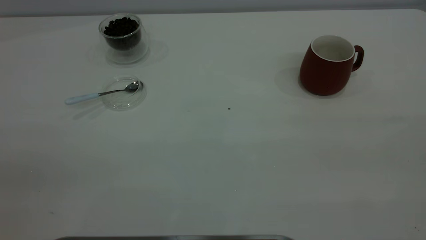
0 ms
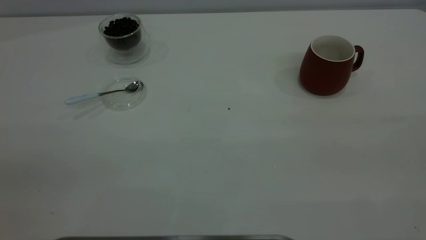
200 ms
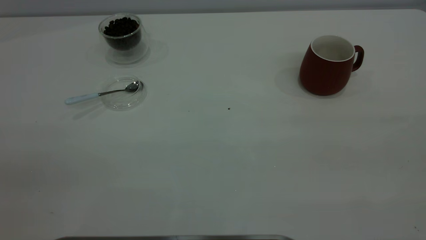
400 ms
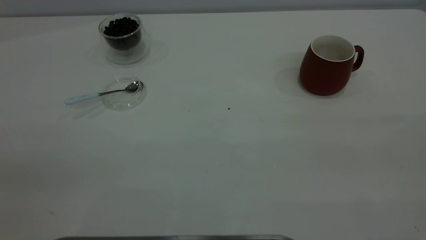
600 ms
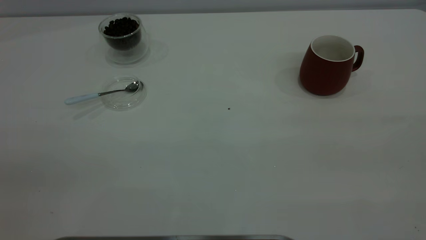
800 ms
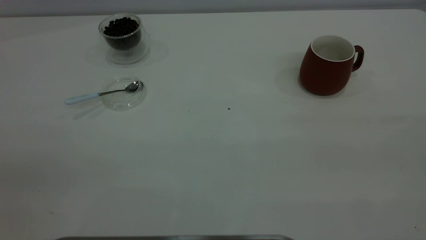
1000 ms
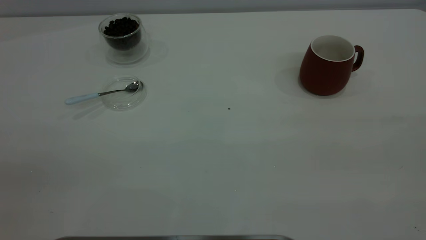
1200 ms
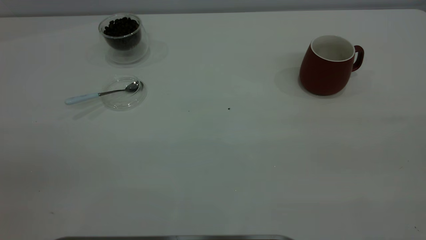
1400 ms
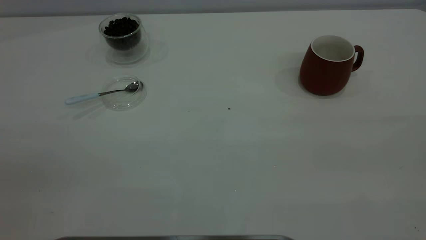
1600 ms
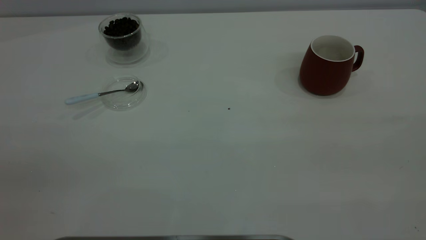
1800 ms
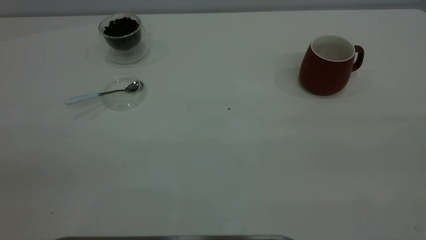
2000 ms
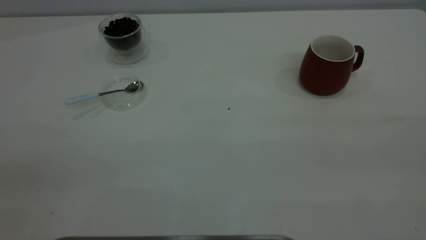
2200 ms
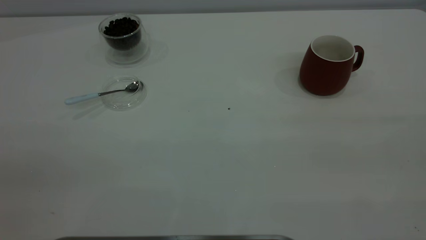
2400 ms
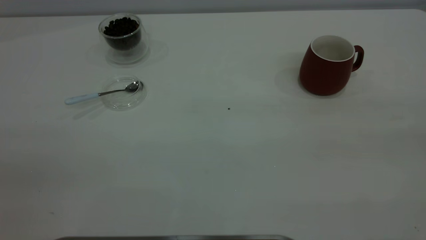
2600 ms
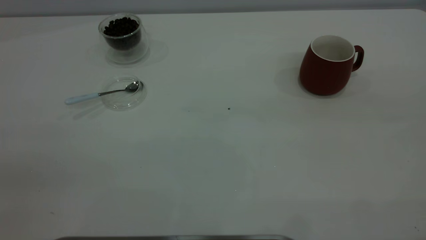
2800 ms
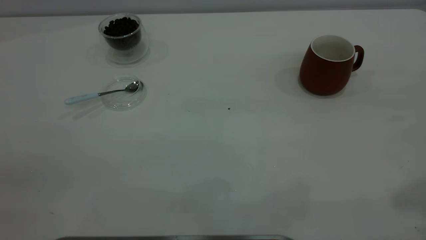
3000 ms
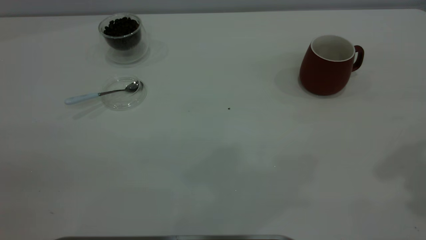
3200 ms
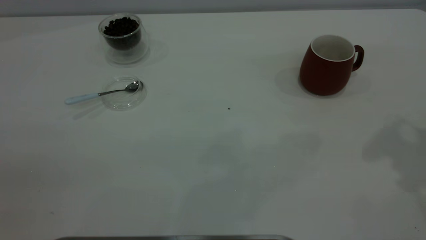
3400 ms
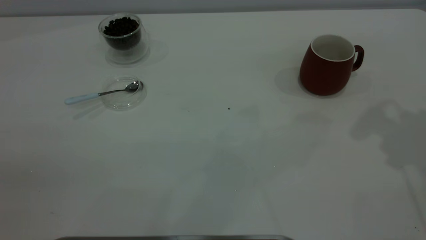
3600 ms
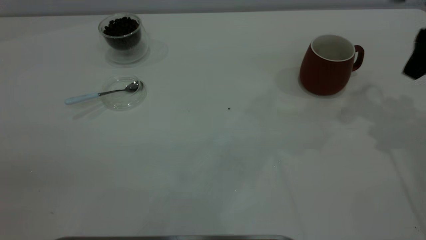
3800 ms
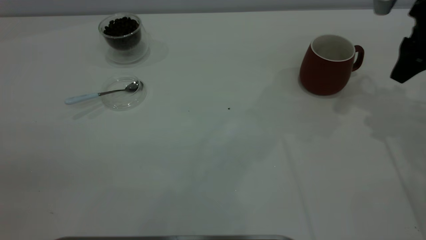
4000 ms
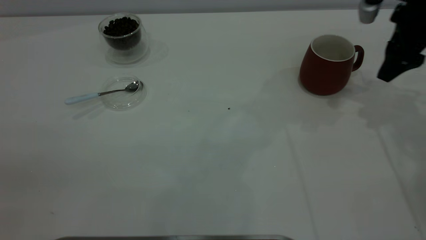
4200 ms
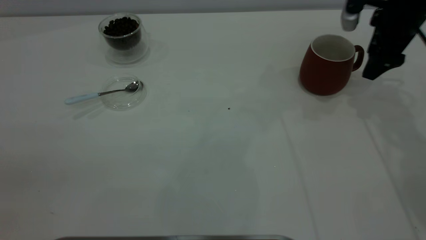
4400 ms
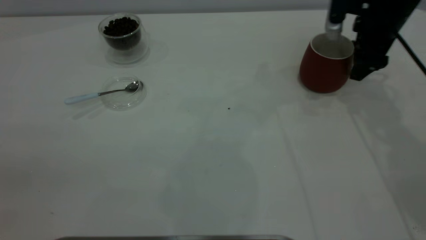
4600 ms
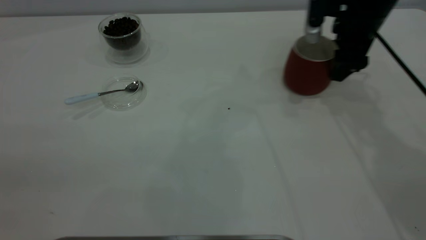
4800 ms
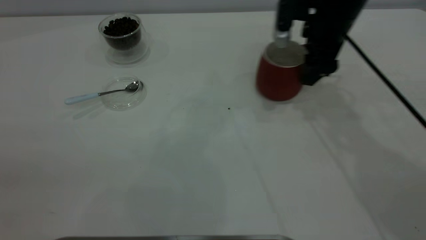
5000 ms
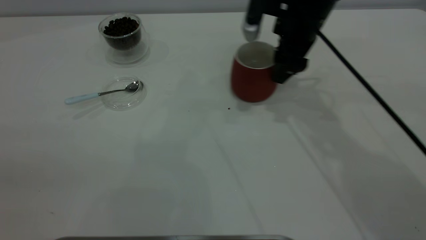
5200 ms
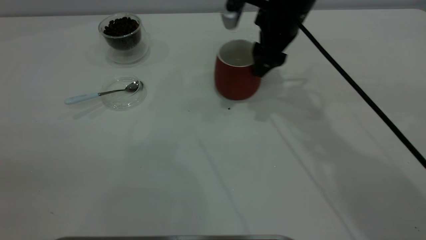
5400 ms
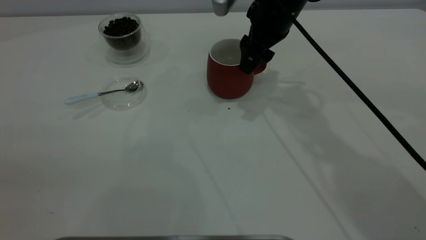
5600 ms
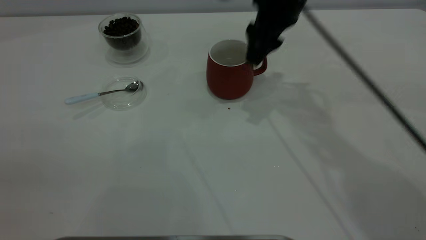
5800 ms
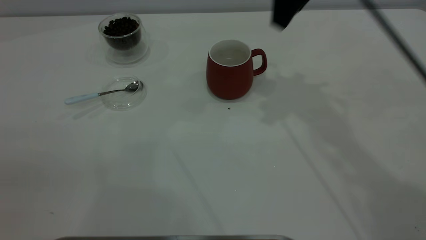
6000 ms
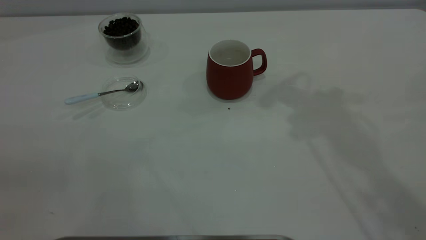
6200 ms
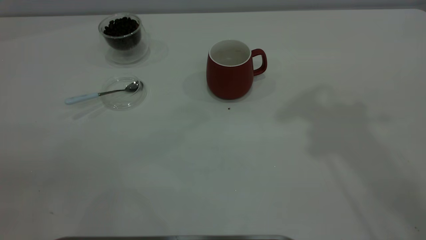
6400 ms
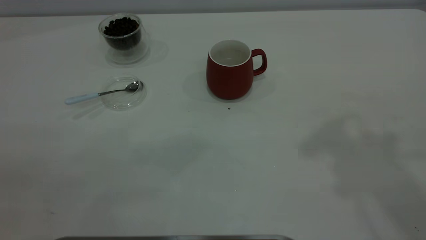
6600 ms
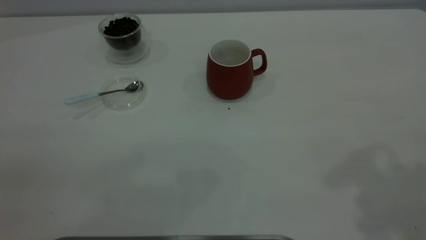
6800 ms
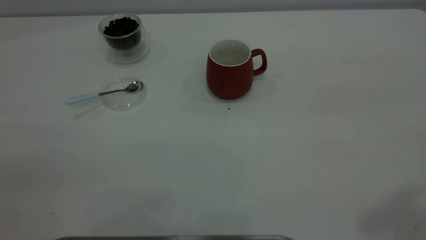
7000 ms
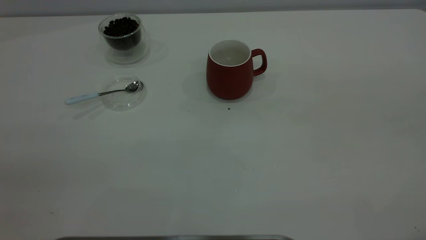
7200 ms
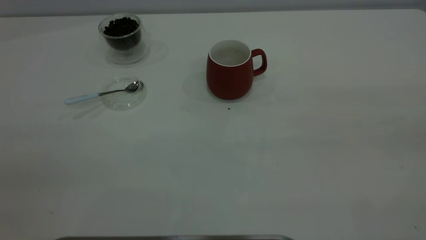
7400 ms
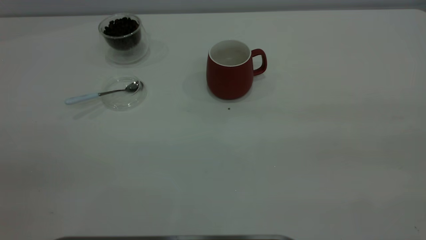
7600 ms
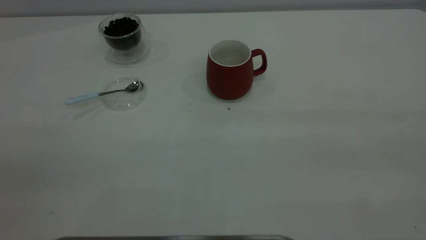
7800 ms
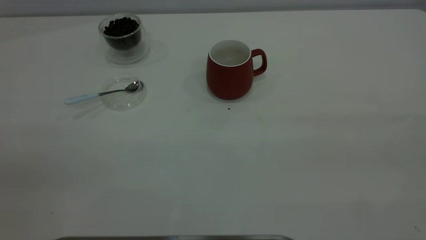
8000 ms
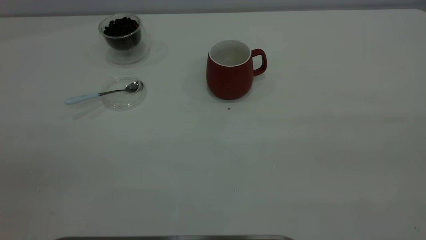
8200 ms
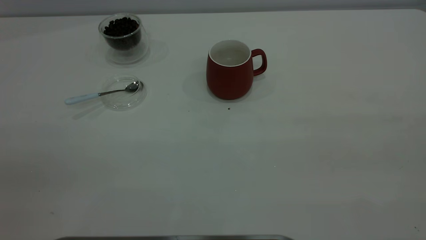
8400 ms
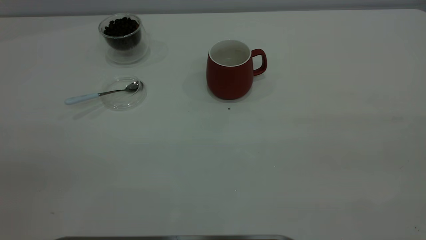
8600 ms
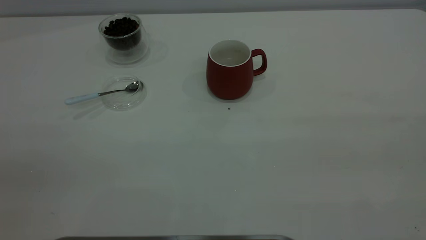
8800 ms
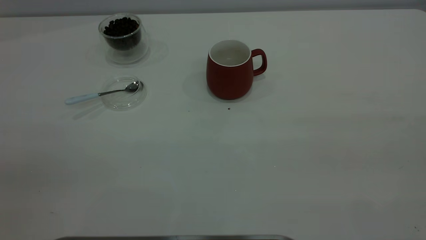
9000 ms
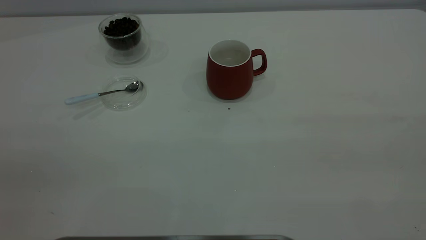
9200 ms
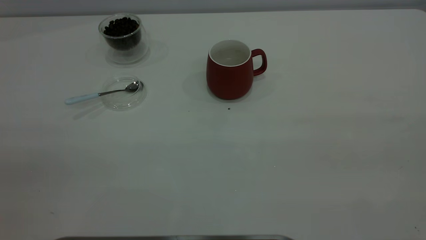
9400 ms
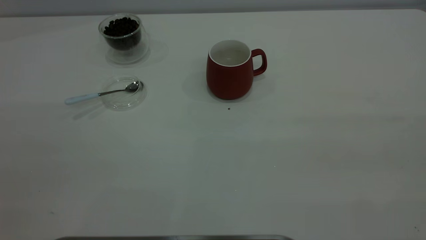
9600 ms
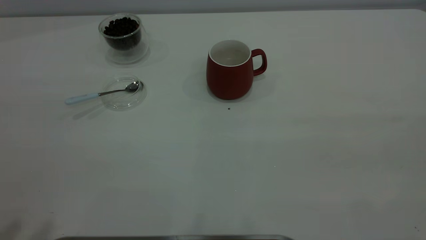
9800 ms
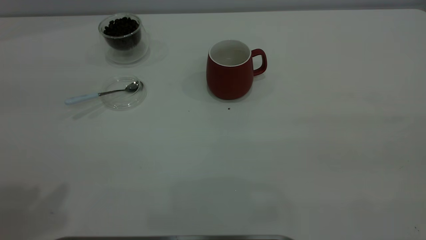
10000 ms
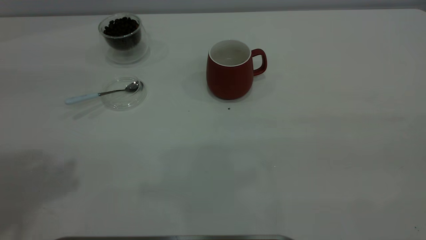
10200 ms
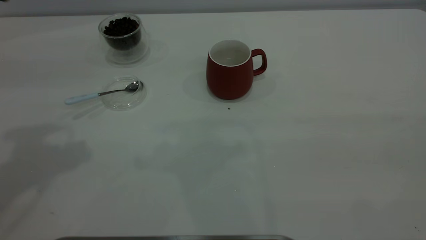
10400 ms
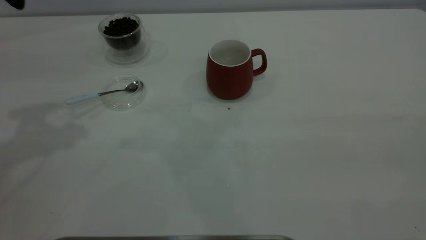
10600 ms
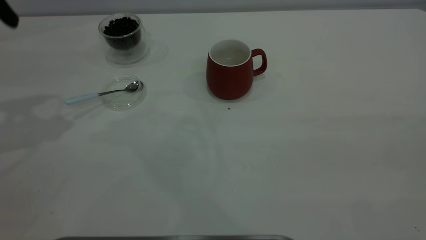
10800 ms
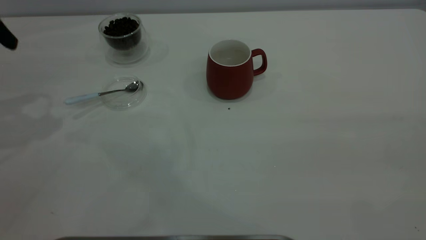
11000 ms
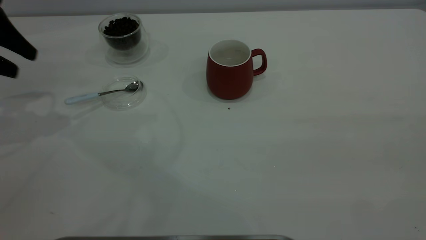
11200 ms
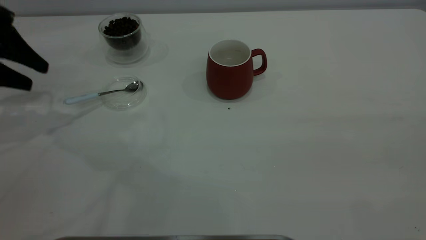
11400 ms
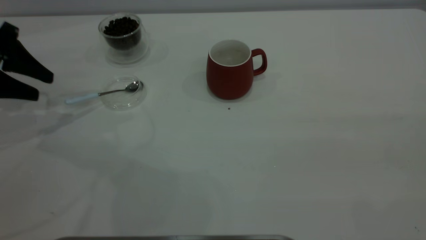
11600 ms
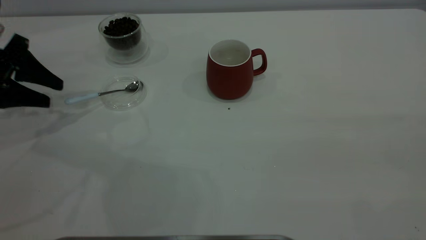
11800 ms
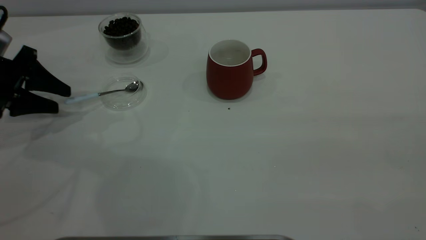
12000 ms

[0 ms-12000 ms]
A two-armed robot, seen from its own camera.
Task of the whole recording: the right gripper place the red cup in the center of the table, the left gripper take the blue spoon from the cup lid and scoop out the coffee beans from the coffee cup and put them into the red cup, the left gripper put the spoon back into the cup lid.
Step, 0 ms to 5800 ms: Move the cup to the center of view.
0 ms to 1600 ms: Neither gripper changes place.
3000 ms to 4400 ms: The right gripper heads forward and downward, covering approximately 35 cm, and opens its fingers.
4400 ms to 6000 ms: The right gripper moves upward and to the left, roughly 20 cm, and closes its fingers.
6000 ms to 7600 ms: The right gripper moves backward and to the right, some 40 cm.
10400 ms to 12000 ms: The left gripper shifts roughly 25 cm downward.

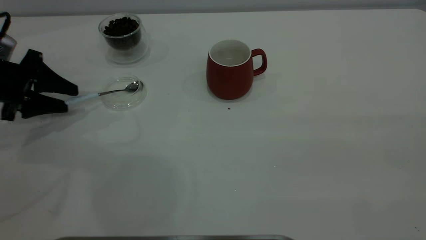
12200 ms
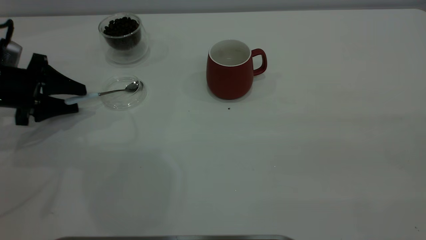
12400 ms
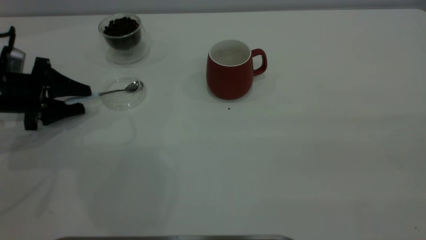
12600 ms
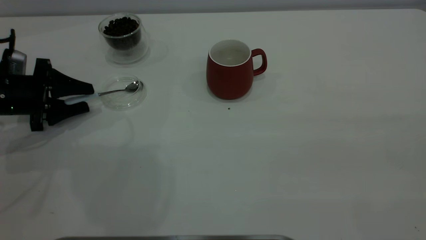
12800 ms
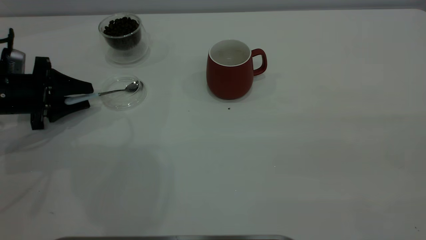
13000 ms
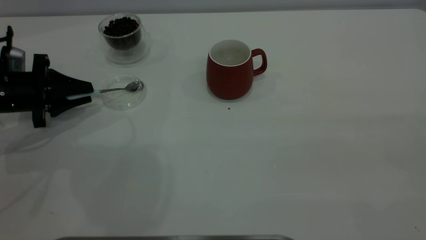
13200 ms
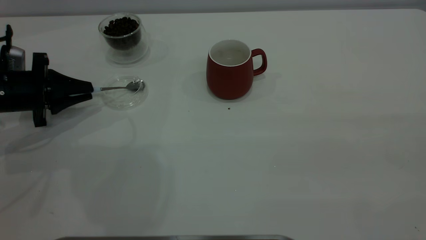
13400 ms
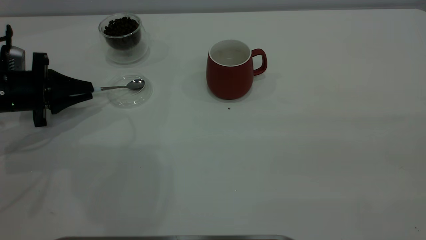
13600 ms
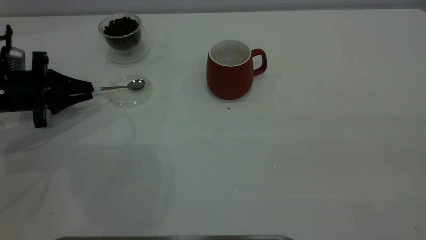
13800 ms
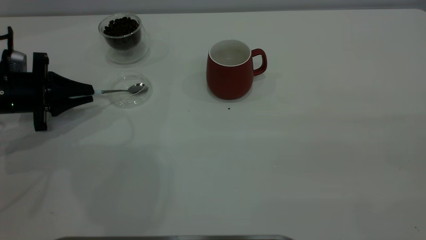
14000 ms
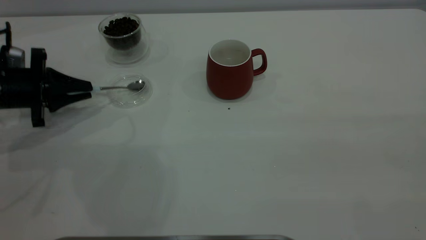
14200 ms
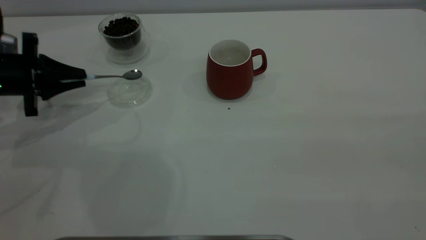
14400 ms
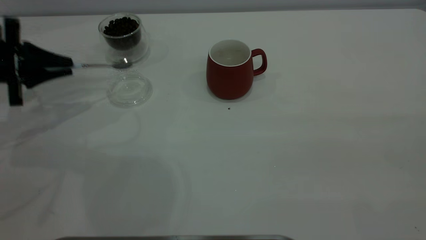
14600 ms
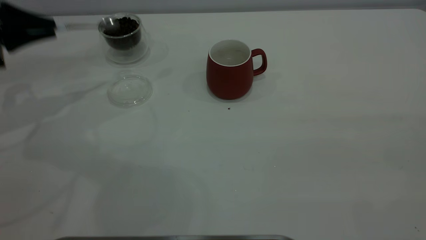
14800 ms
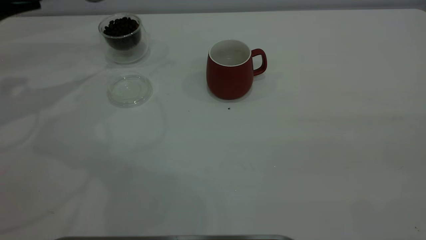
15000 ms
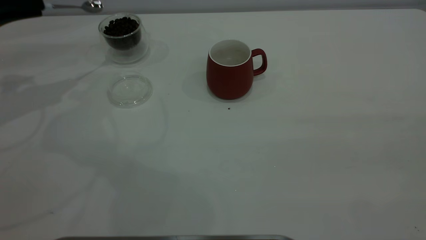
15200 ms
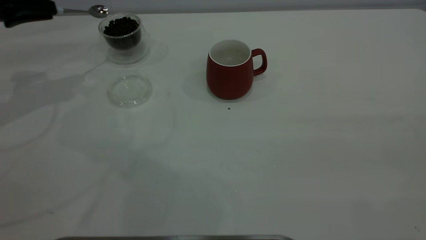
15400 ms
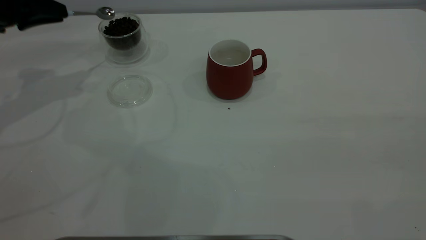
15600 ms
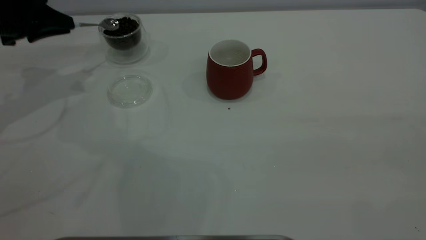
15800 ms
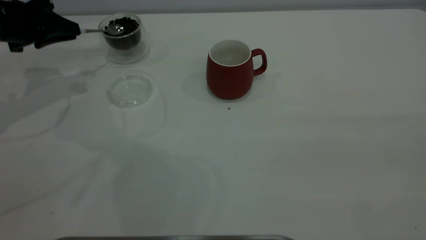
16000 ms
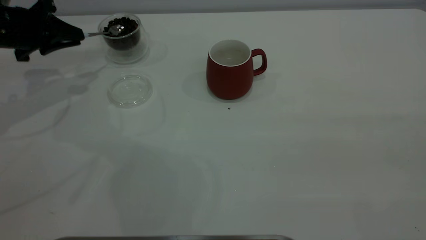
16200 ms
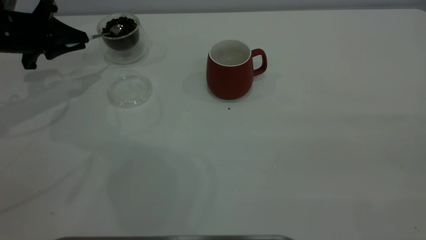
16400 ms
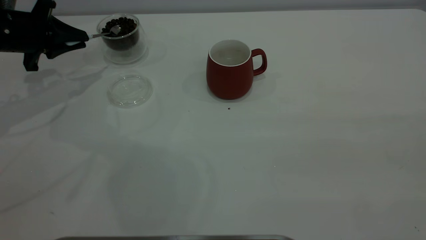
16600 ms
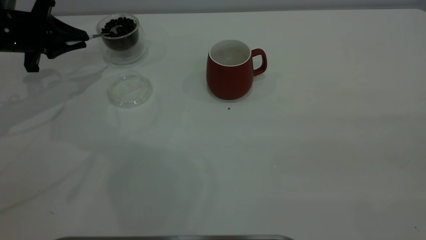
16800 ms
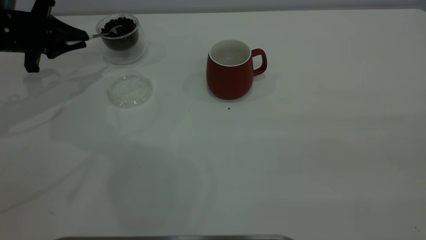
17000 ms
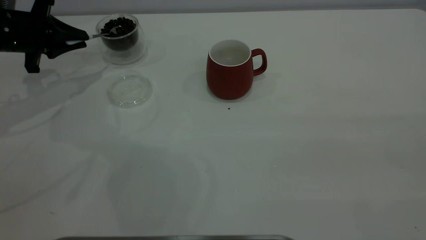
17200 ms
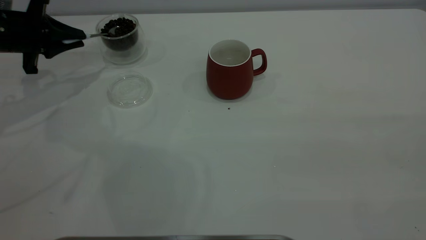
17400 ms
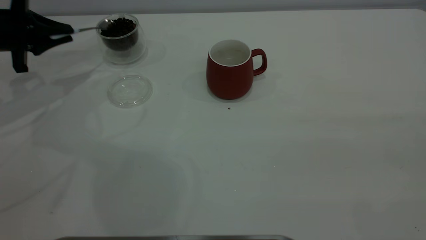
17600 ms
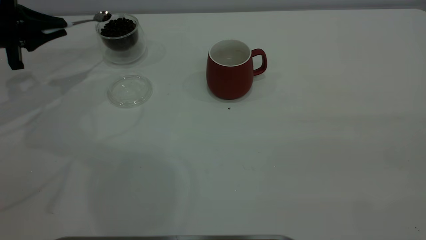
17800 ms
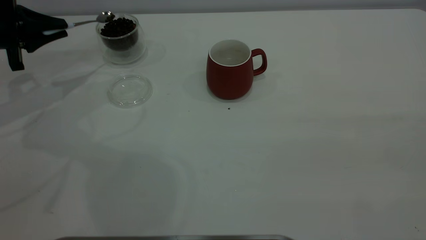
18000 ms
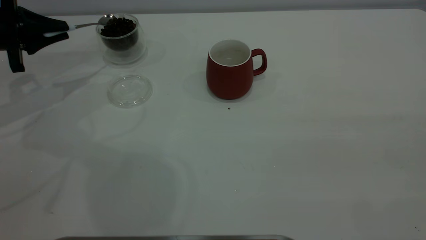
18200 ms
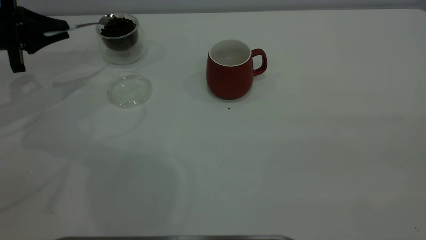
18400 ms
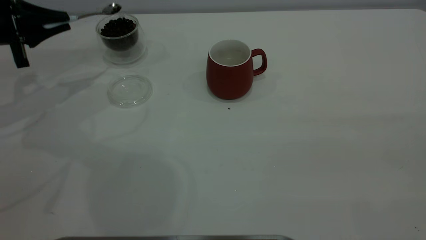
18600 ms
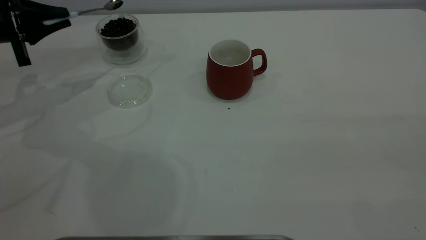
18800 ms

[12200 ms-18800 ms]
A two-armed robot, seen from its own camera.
Task of the whole recording: the right gripper place the red cup in the center of the table, the left gripper take the blue spoon from the cup lid and scoop out the coffee beans from the coffee cup and put them into the red cup, the left gripper put the spoon back into the cup lid.
Step, 12200 ms to 14400 ms: Pick up the spoon.
12200 ms to 13800 ms: The left gripper closes.
13800 ms to 15400 ms: The left gripper heads upward and forward, covering roughly 15 cm.
15400 ms to 17200 ms: The left gripper heads downward, covering about 5 cm.
